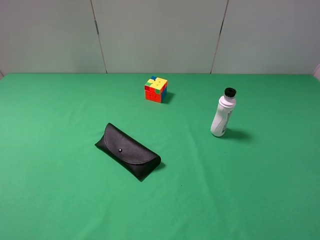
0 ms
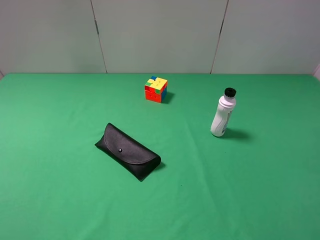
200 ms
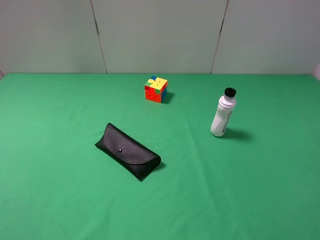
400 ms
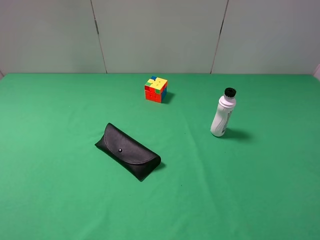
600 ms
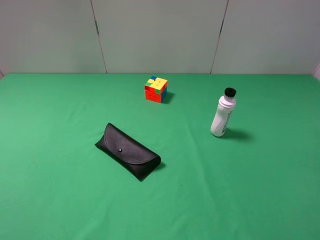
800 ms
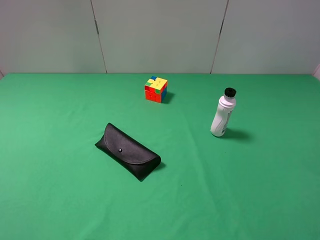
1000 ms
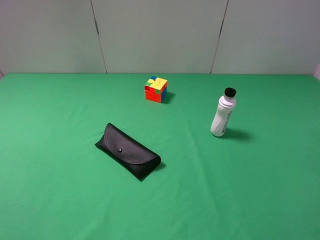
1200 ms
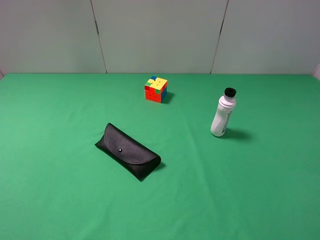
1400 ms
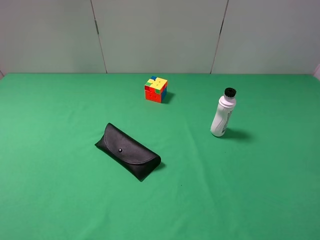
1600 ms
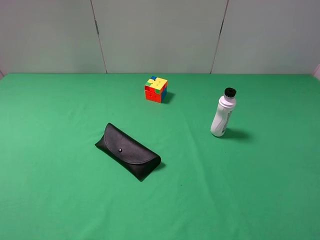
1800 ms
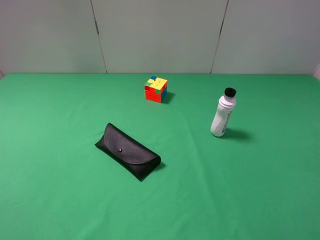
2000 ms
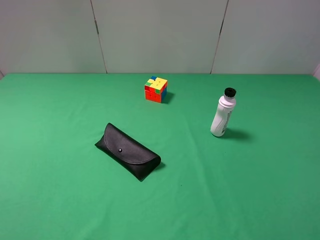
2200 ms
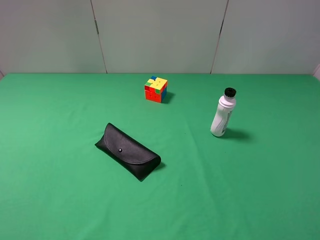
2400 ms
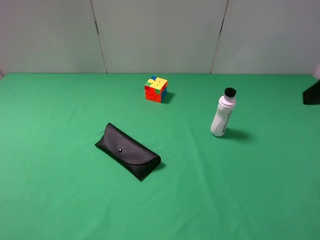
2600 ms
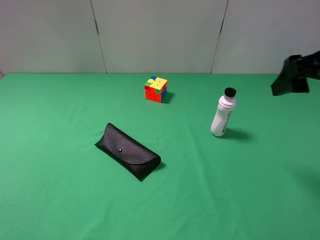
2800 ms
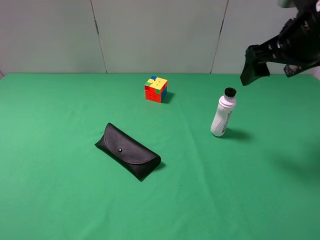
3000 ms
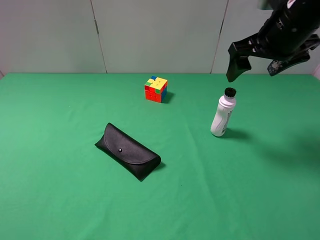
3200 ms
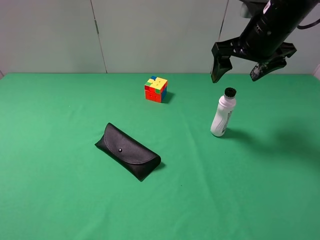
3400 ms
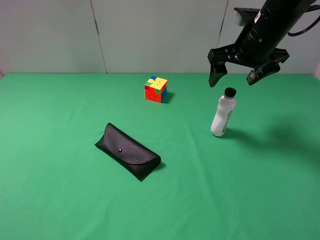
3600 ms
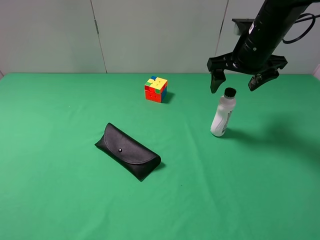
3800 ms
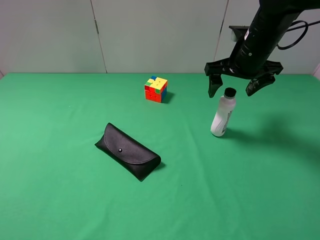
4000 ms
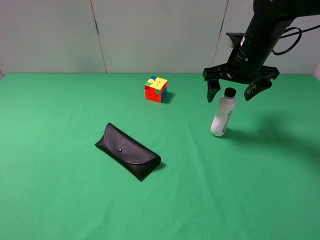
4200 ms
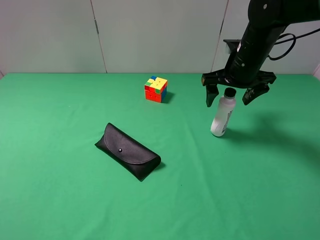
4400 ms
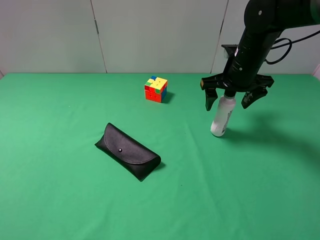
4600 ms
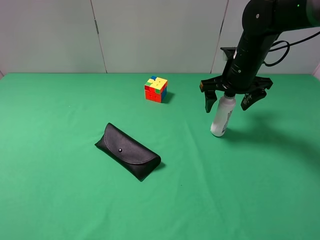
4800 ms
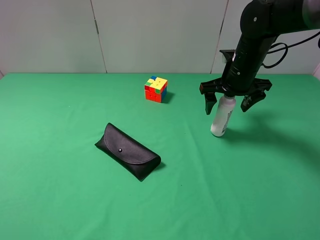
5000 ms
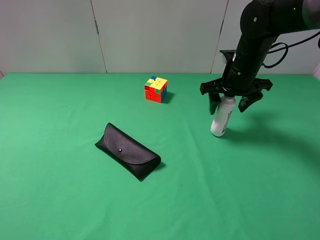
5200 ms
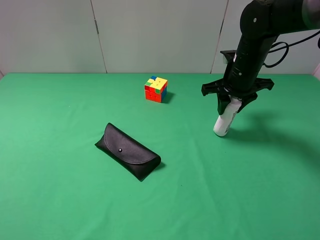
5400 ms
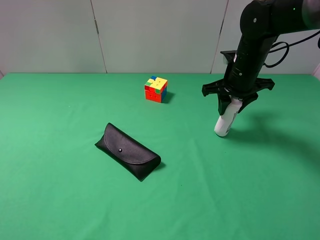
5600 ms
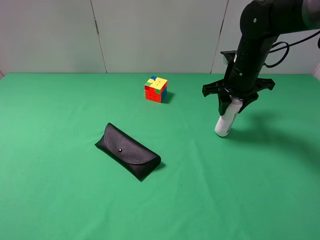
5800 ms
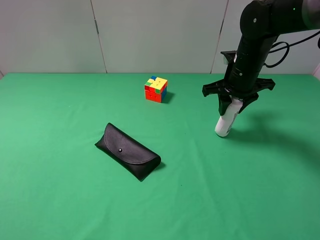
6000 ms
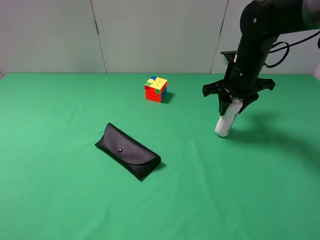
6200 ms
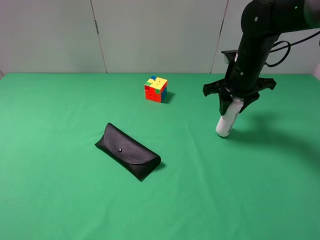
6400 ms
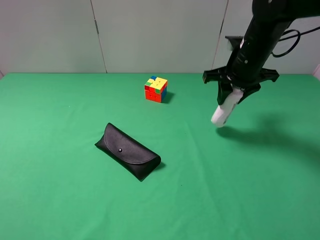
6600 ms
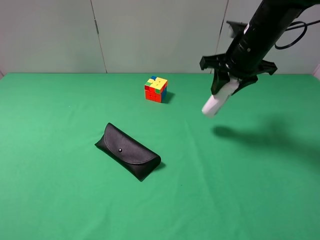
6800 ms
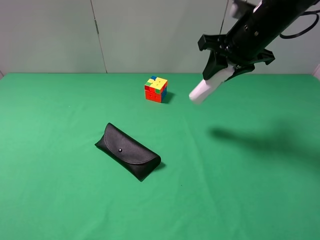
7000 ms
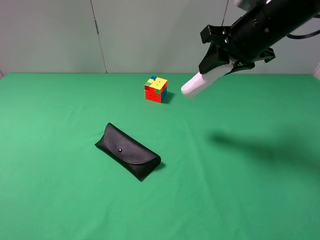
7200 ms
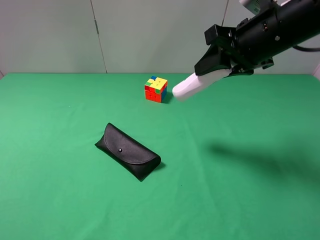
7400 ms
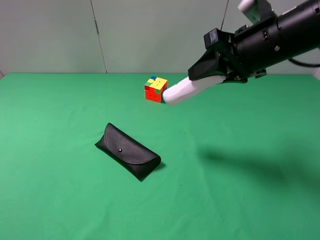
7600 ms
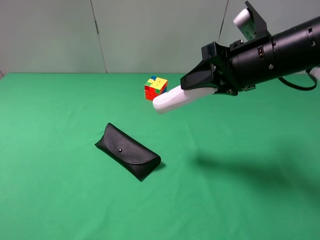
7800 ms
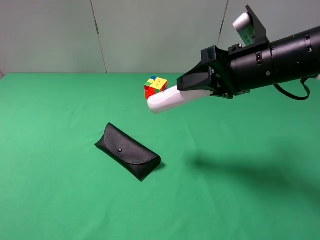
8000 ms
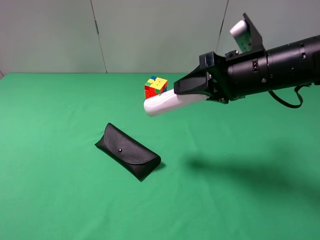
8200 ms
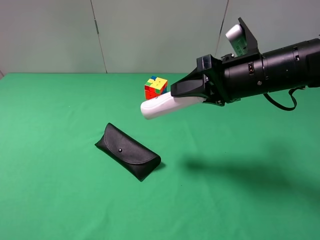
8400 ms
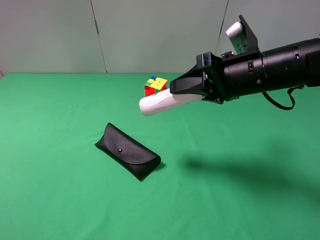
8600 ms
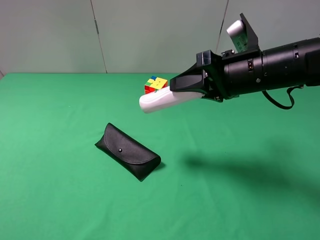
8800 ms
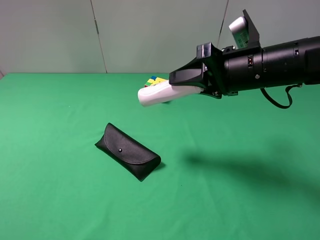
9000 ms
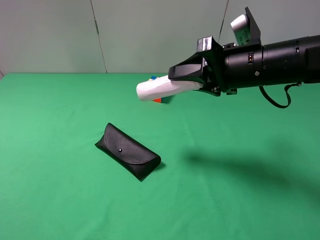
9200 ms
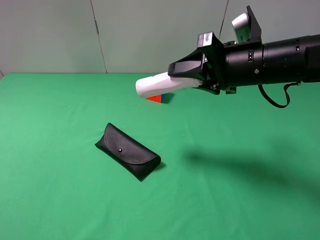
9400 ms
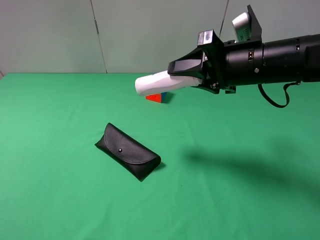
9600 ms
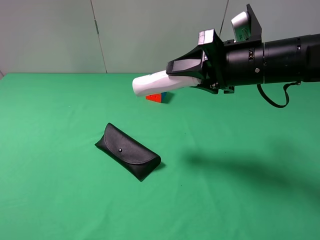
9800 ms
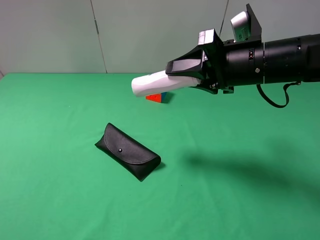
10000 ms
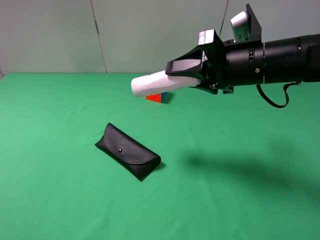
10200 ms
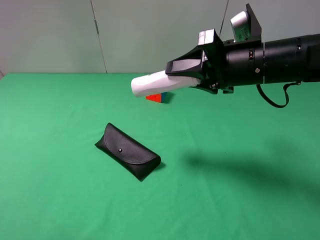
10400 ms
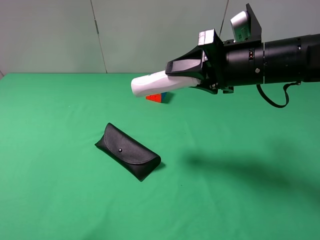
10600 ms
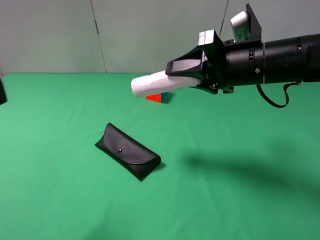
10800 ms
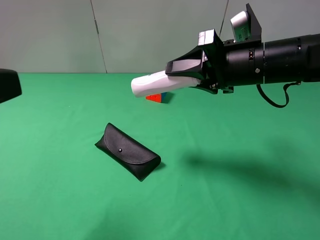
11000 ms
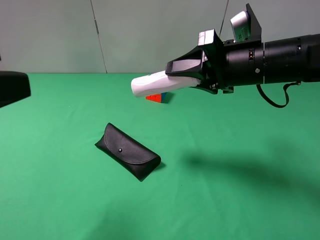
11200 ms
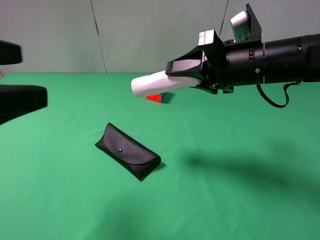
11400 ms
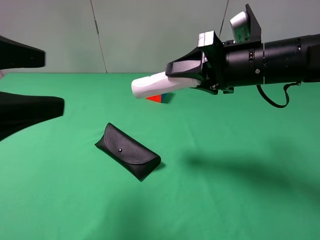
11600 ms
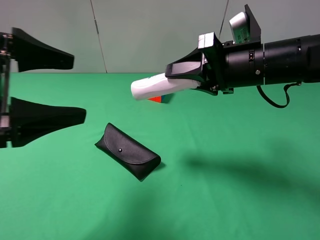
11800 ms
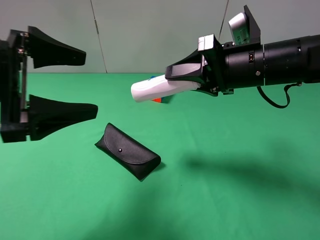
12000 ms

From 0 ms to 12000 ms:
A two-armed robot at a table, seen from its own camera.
Task of the whole recording: use the right gripper to pick up the item and transfer it from the right gripper to the left gripper.
From 0 ms to 1600 ms: Both grippers stay put.
From 1600 ms to 3000 ms: The right gripper heads forward, covering roughly 30 cm.
From 3000 ms to 4400 ms: The right gripper goes approximately 15 cm downward and forward.
From 4400 ms to 6000 ms: The right gripper closes its fingers.
From 6000 ms to 7600 ms: The right gripper shifts roughly 15 cm backward and upward.
From 7600 ms to 9000 ms: The grippers make only small movements.
From 10400 ms to 12000 ms: The left gripper goes approximately 15 cm forward and to the right.

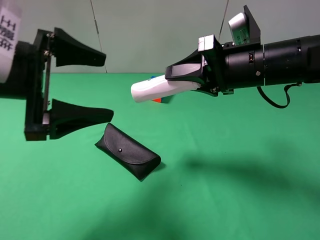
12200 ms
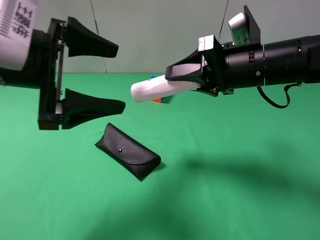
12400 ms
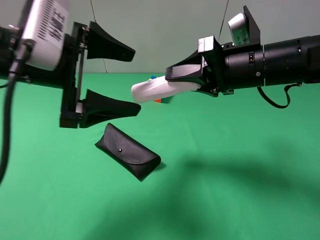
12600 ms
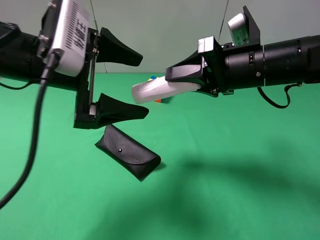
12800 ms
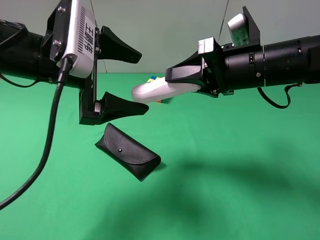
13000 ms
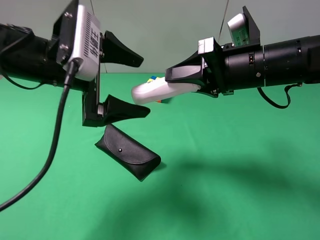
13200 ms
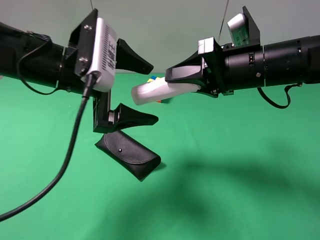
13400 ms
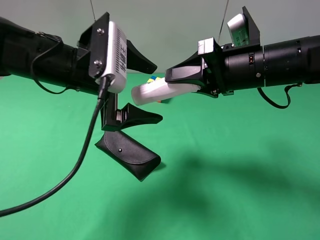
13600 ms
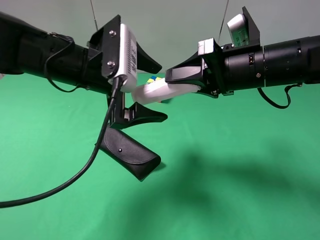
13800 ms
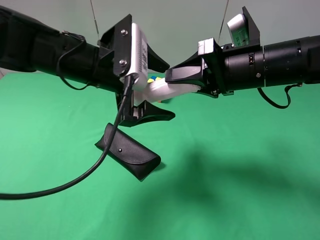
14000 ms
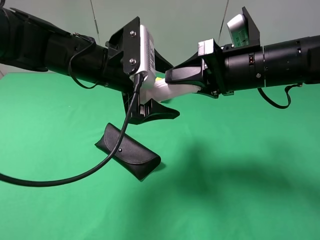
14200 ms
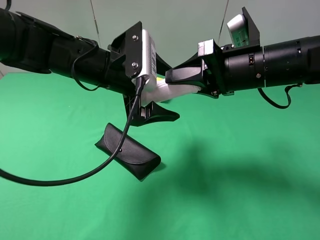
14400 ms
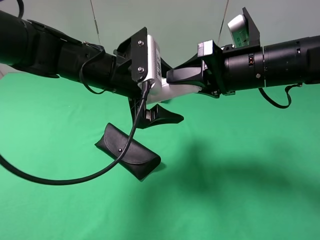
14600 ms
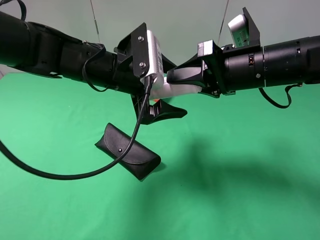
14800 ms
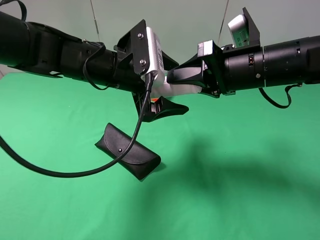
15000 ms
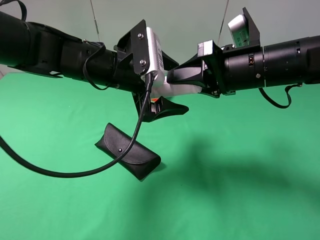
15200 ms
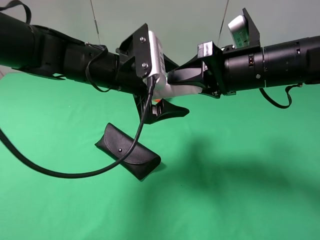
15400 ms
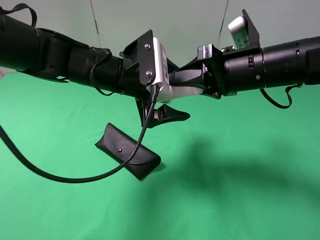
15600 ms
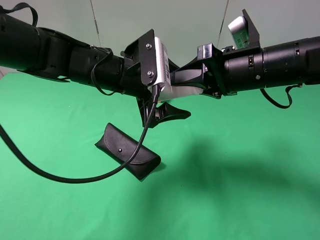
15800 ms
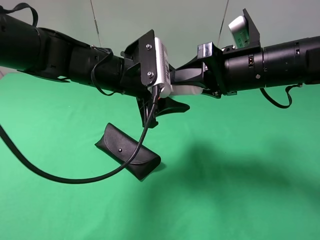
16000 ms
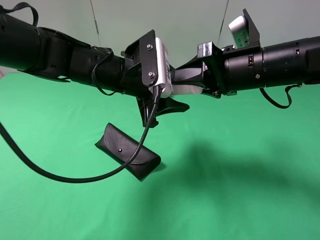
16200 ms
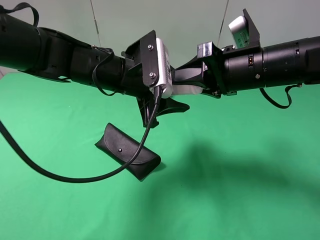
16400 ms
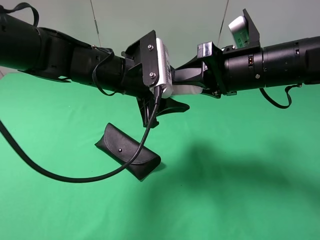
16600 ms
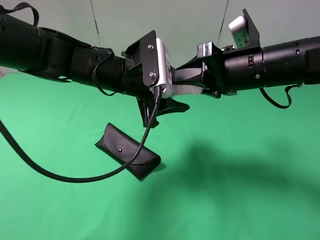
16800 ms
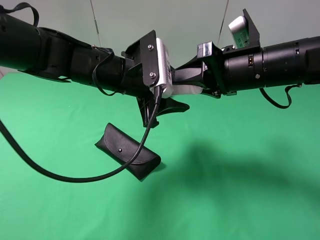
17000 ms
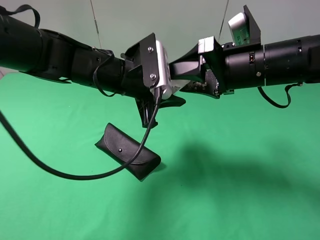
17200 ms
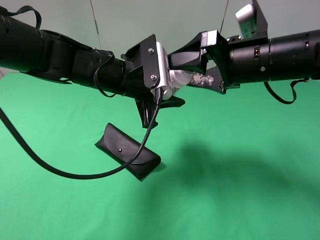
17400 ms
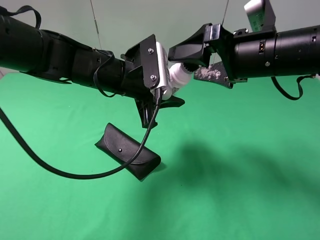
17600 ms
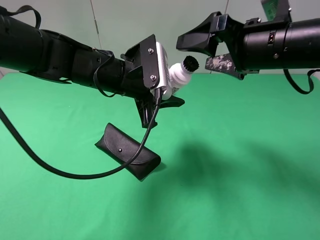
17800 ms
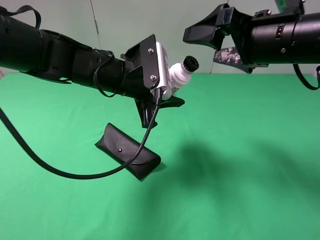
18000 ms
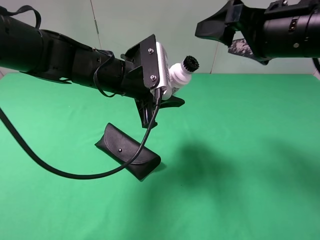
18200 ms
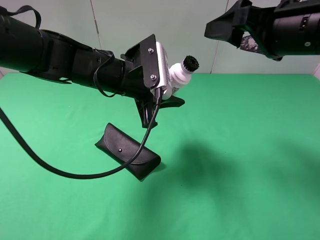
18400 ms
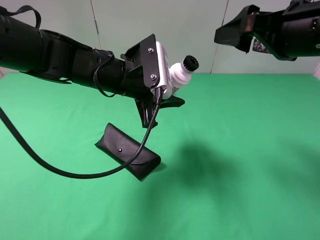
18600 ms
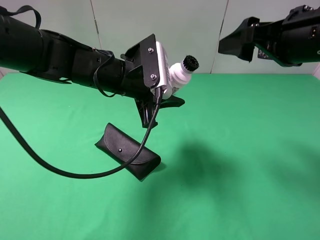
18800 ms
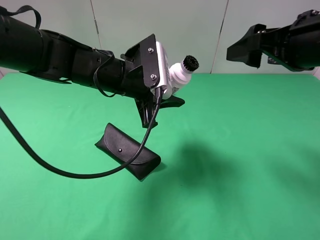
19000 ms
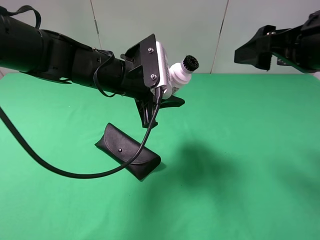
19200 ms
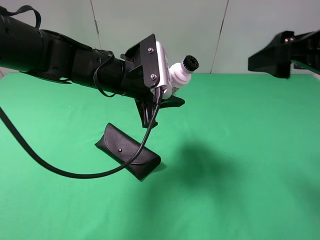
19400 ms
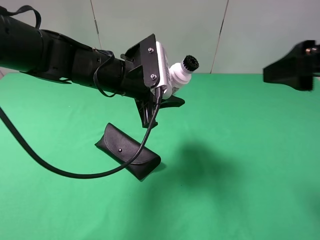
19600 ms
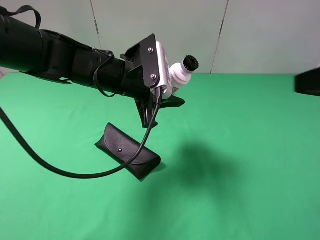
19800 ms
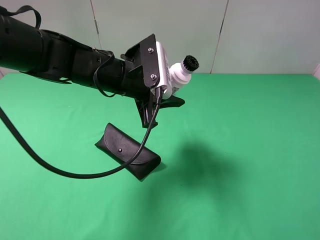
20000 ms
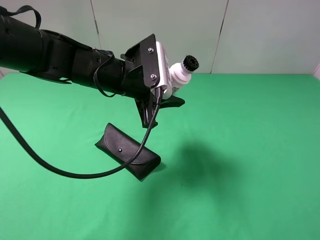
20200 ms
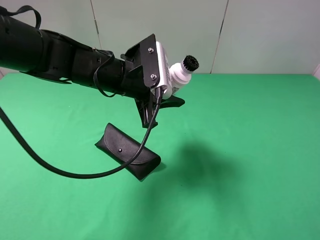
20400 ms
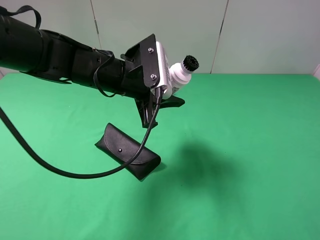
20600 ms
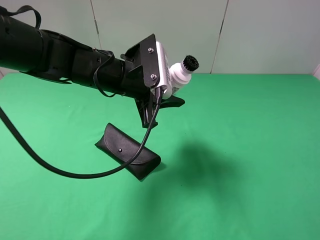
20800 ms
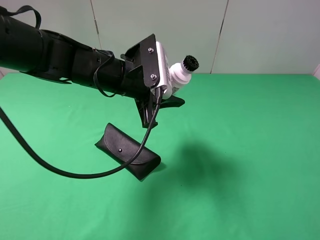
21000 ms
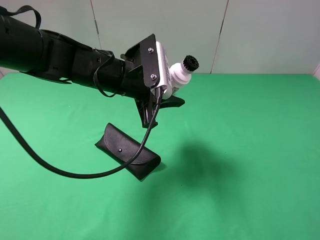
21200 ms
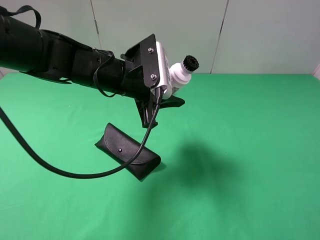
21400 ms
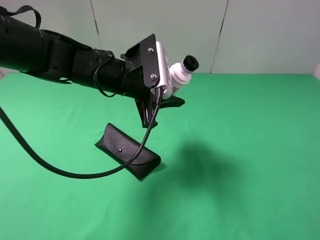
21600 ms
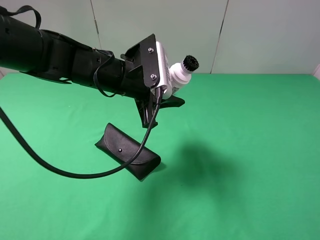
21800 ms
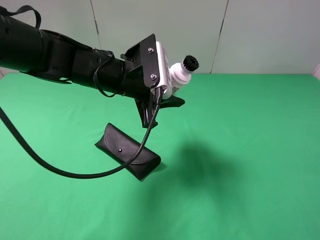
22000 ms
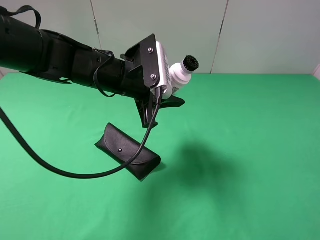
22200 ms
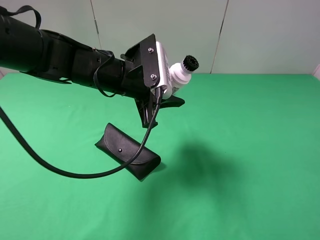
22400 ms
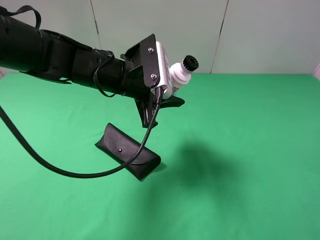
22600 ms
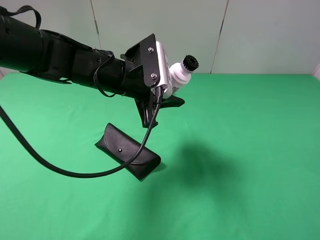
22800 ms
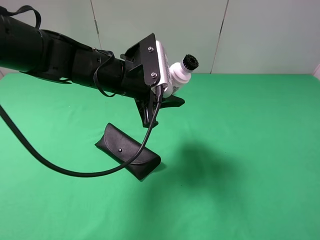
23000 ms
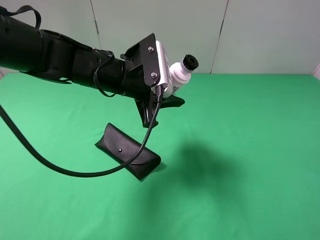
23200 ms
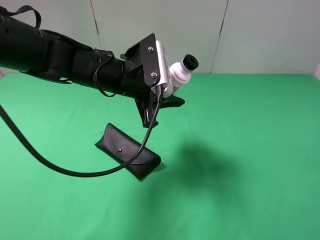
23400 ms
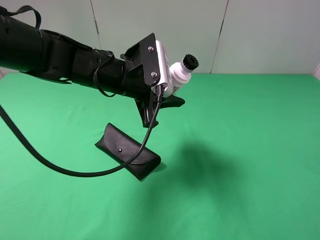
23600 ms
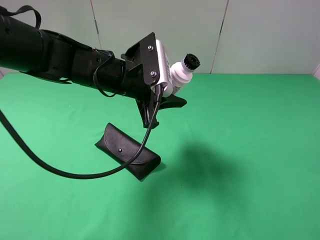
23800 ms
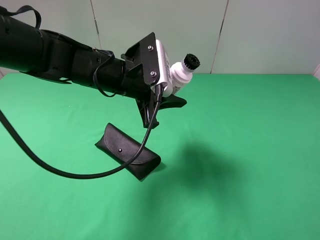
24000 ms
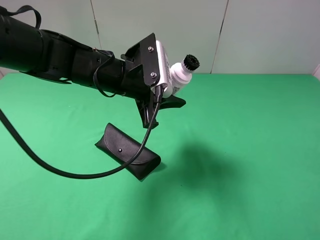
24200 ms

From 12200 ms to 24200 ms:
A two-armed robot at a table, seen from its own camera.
Task of the whole recording: use the right gripper to pick up the item and transfer it from the right gripper to the left gripper.
Step, from 12200 ms to 17600 ms: Pass the shampoo to the left gripper.
From 12200 ms to 13800 ms: The left gripper shifts approximately 10 cm to the right and forward.
From 13800 ms to 15200 ms: The grippers move only a little.
From 15200 ms to 16600 ms: The left gripper closes.
From 16600 ms to 18200 ms: The right gripper shifts roughly 5 cm upward, and opens, while the left gripper closes up.
From 18200 ms to 19800 ms: The right gripper heads backward and to the right, covering some 15 cm.
From 19800 ms to 21200 ms: The right gripper moves backward and downward, about 10 cm.
From 22600 ms to 24200 ms: Both grippers stay put.
